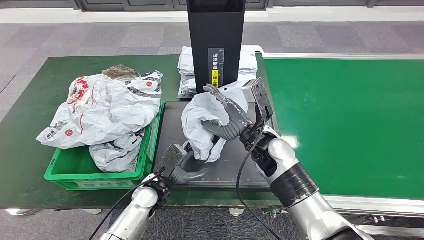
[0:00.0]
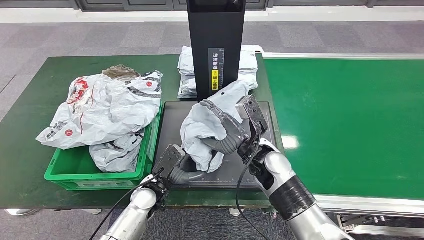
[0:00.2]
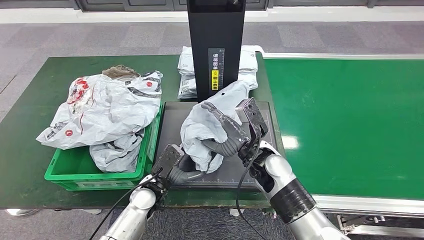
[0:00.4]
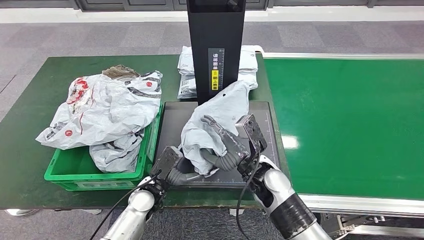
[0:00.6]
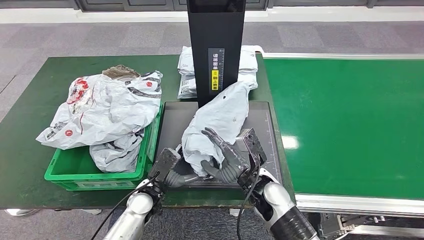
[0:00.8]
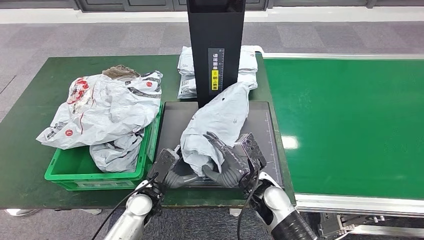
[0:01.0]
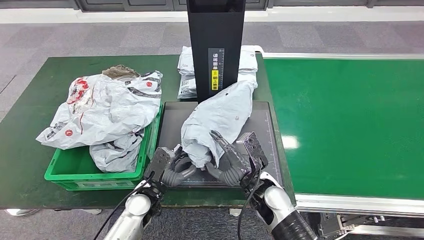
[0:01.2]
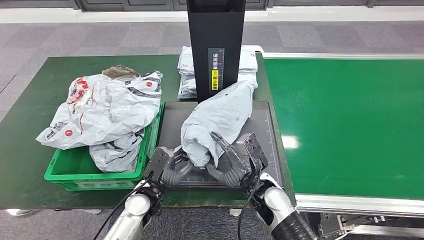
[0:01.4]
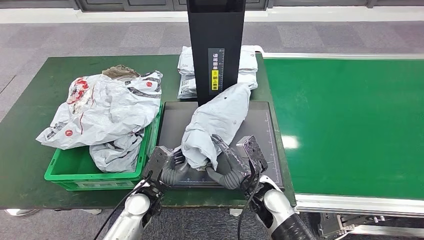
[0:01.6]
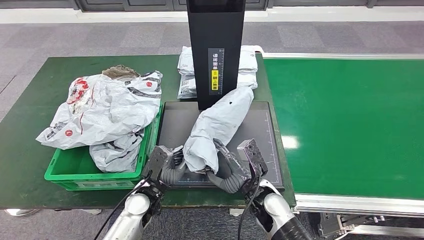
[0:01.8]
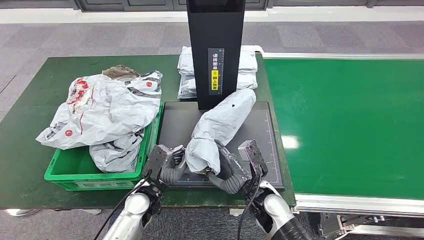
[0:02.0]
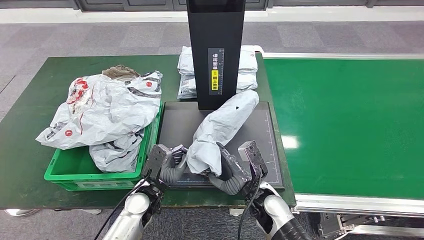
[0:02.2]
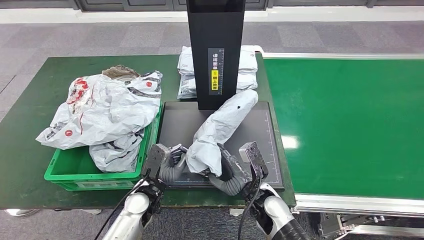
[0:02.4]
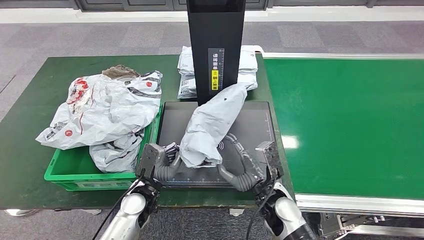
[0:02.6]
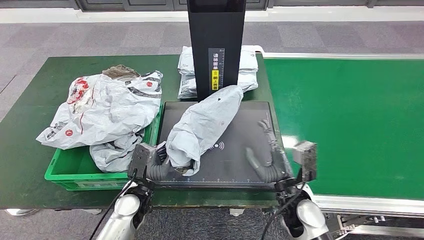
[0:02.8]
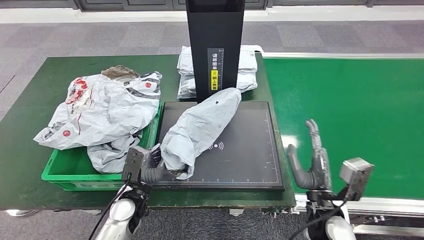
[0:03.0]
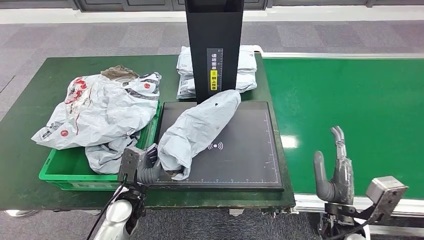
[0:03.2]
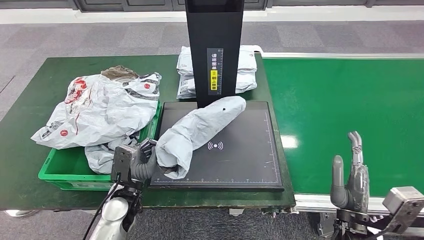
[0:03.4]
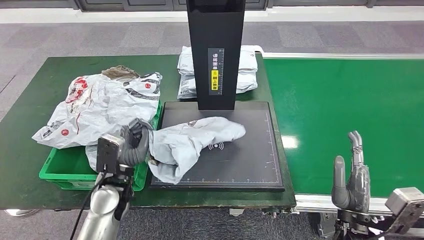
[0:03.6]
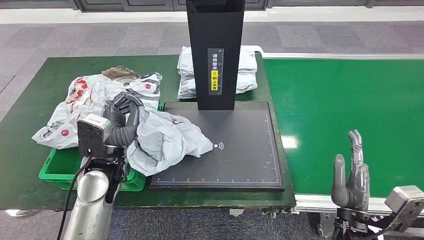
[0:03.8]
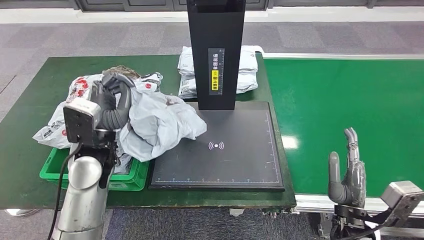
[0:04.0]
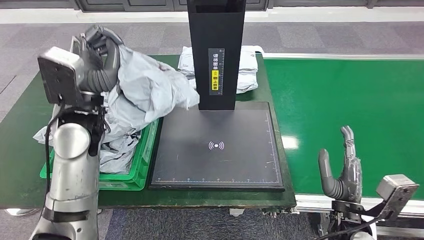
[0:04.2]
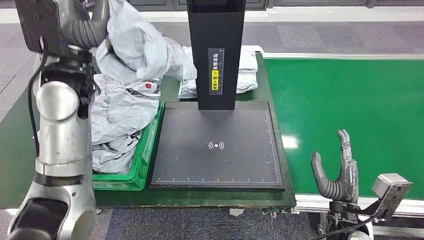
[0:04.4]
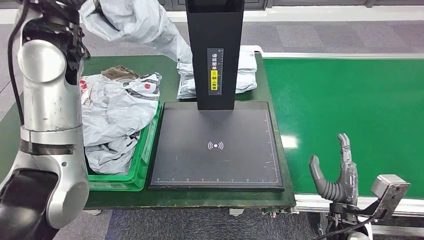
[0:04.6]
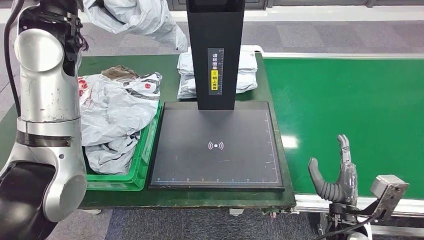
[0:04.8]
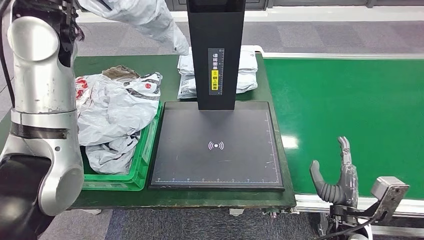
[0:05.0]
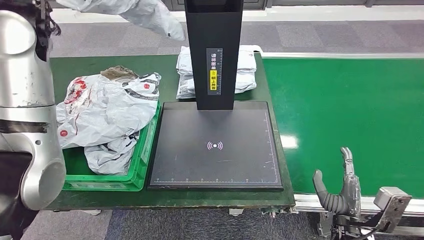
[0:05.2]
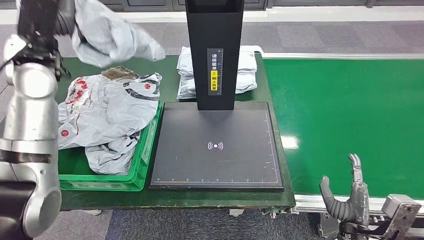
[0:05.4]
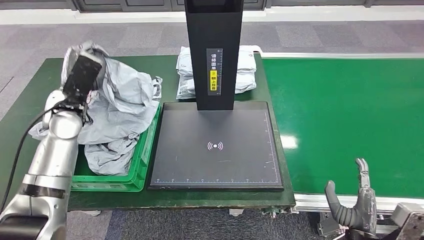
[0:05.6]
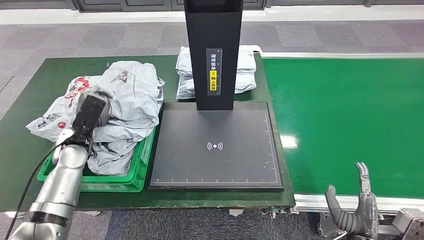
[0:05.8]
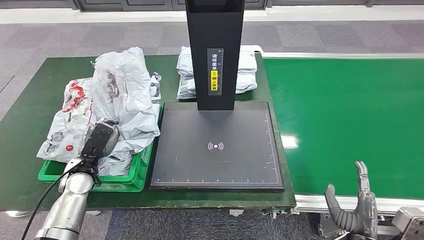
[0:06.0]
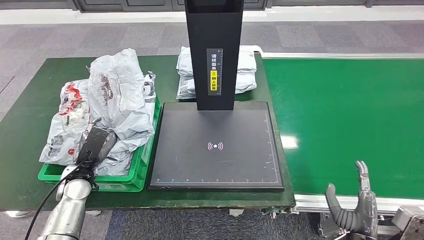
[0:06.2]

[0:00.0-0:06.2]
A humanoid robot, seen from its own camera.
Step, 0:02.0 to 0:04.2: Pick up the parcel from the inbound machine.
Step, 0:04.4 to 0:06.2: Place the parcel into the delivery box.
0:00.0 to 0:01.6: The right hand heads downward and backward, covering roughly 15 cm.
